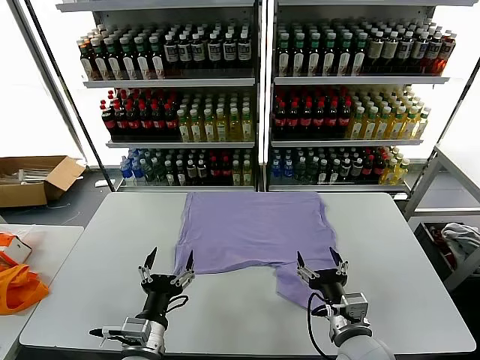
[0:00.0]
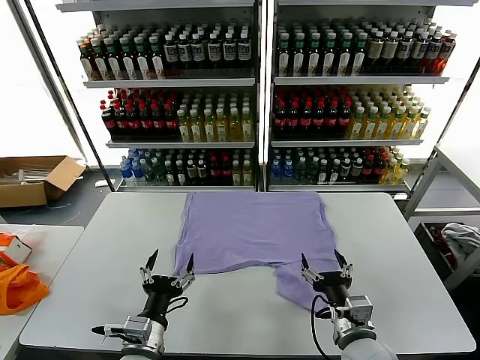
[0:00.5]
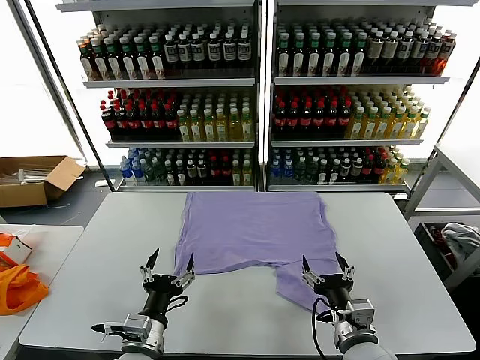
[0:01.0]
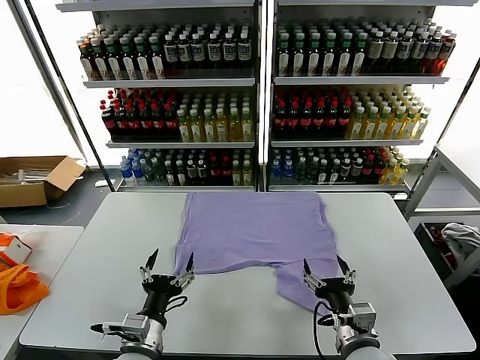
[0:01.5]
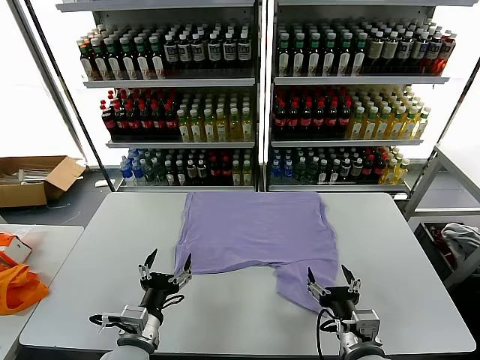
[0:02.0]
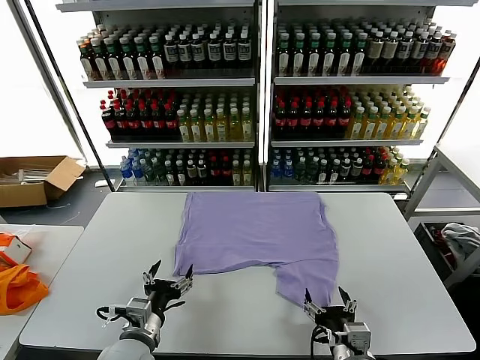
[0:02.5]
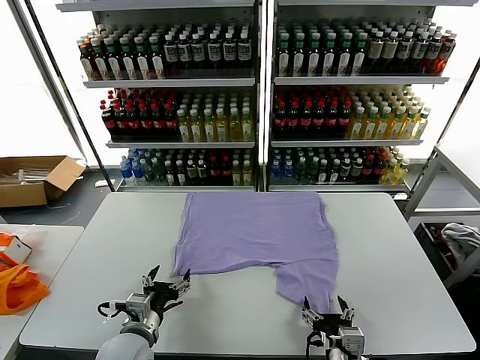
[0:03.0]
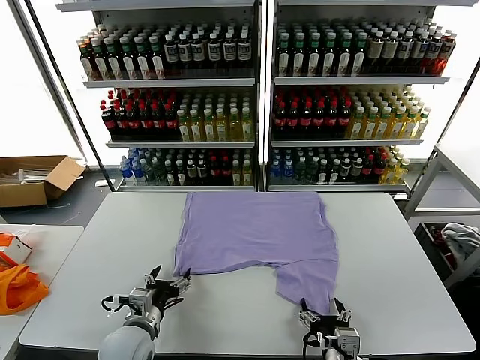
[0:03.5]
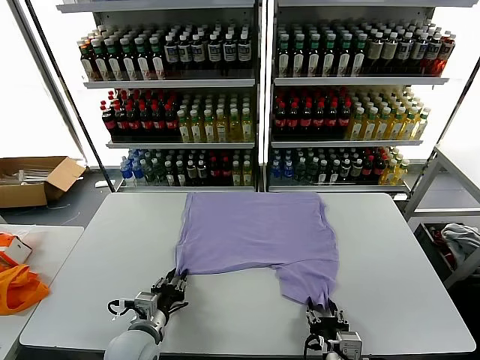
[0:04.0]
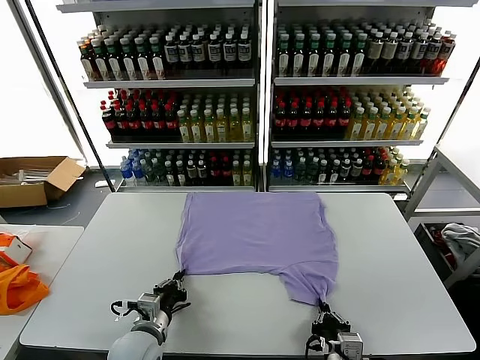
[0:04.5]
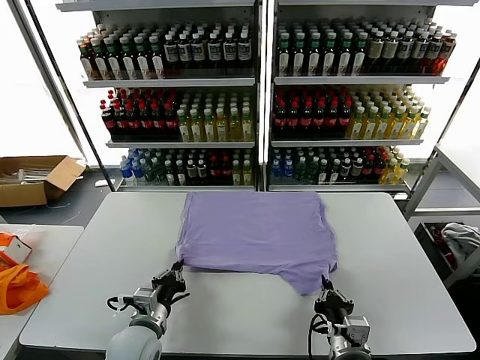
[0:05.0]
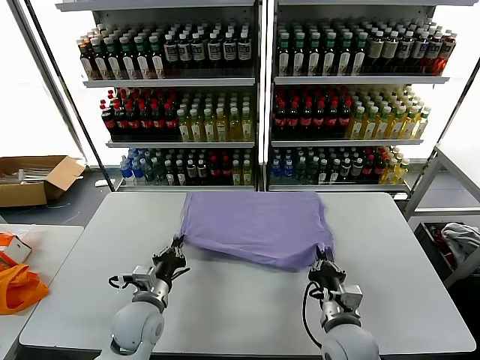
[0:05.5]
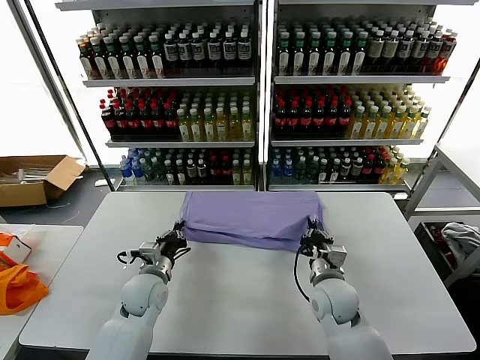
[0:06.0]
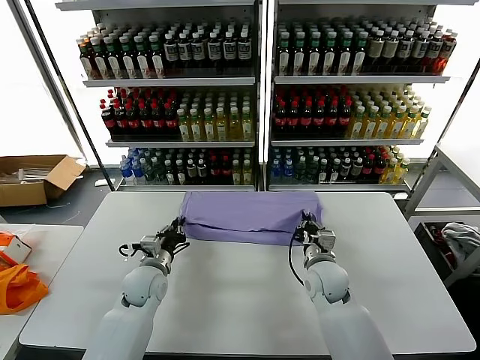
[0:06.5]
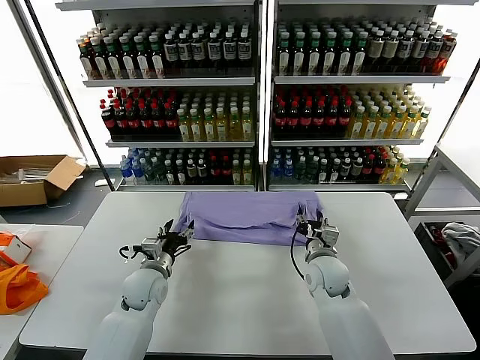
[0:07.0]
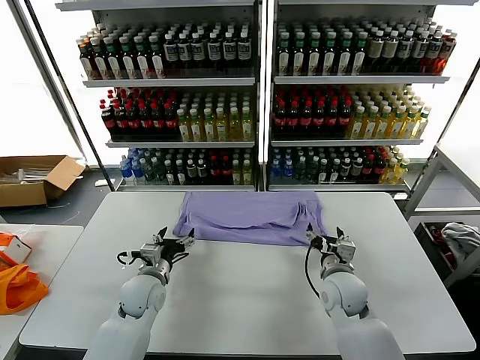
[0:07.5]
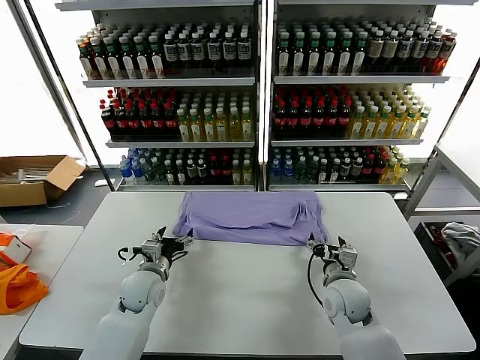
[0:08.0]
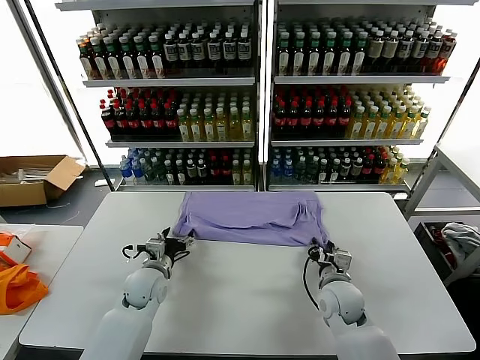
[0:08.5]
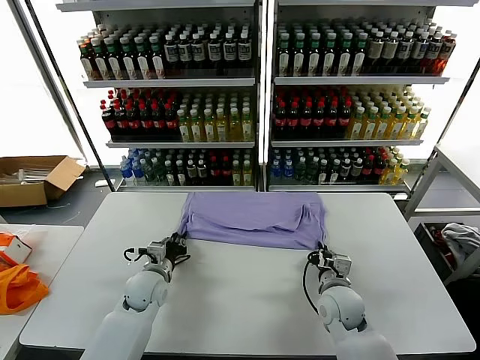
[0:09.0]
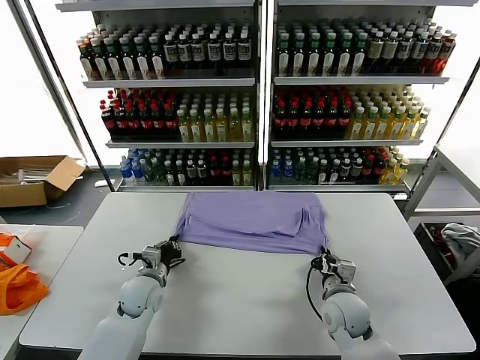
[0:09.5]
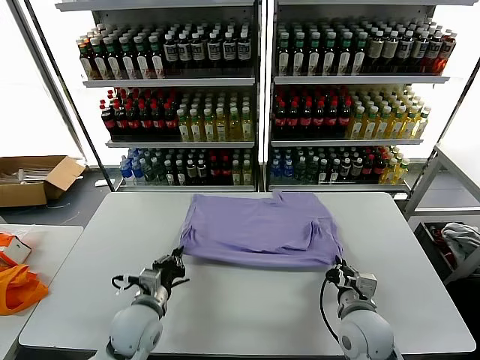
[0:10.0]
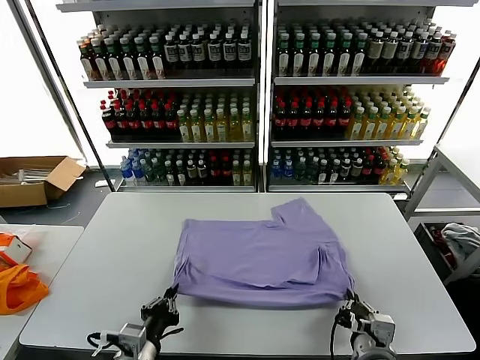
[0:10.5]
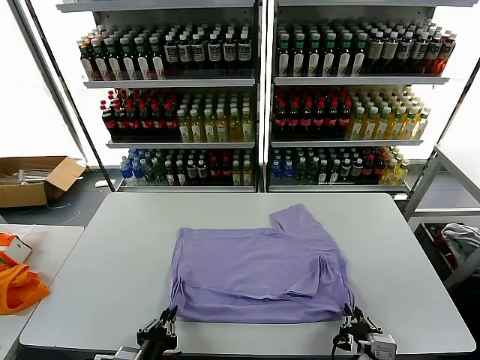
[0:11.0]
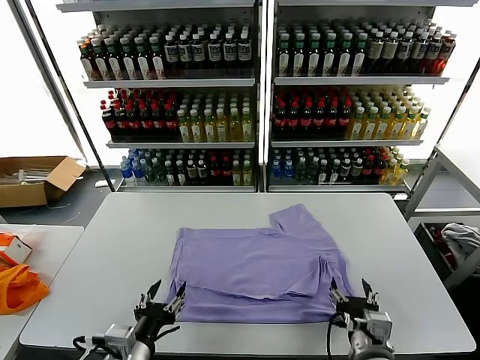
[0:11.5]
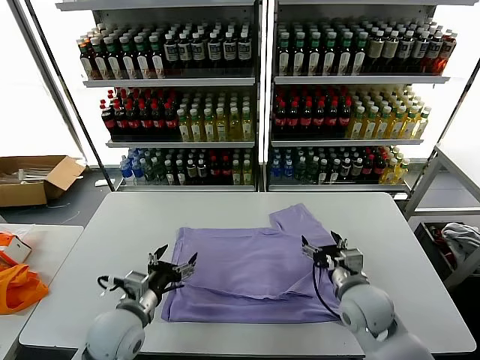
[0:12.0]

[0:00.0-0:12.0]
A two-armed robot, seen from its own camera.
Task of the whole recording: fold and organize the clothes.
Step, 0:00.0 to 0:04.5: use both grippers simultaneously to clamp the lower edge of the clothing fabric.
Step, 0:05.0 to 0:07.0: use both grippers to drag the lower edge of the fabric forward and fold it over the upper edge.
Step, 0:07.5 to 0:11.0: Drag the clothes downward with both gripper.
0:02.0 to 0:04.0: The left gripper moves roughly 5 cm, and closes; the right gripper shifts by approximately 5 cm, and closes.
0:04.0 to 0:06.0: The right gripper heads forward, covering about 20 cm, and closes up; the left gripper moves forward, some 15 cm.
0:06.0 to 0:08.0: The right gripper opens up; the left gripper opens its fingers.
0:08.0 to 0:10.0: The grippers both shift backward by approximately 10 cm. The left gripper closes; the right gripper closes its fingers.
0:10.0 to 0:12.0: The right gripper reaches roughly 10 cm backward, then returns, and opens up. The left gripper reaches some 15 cm backward, then returns, and opens up.

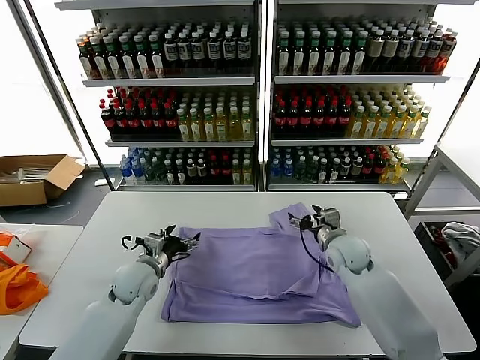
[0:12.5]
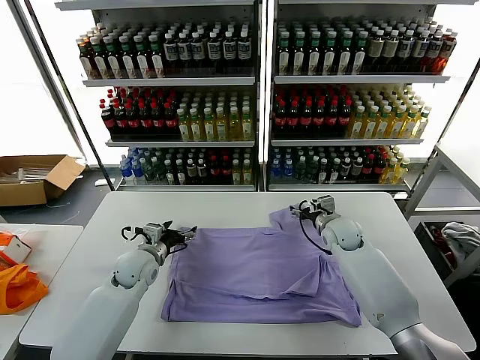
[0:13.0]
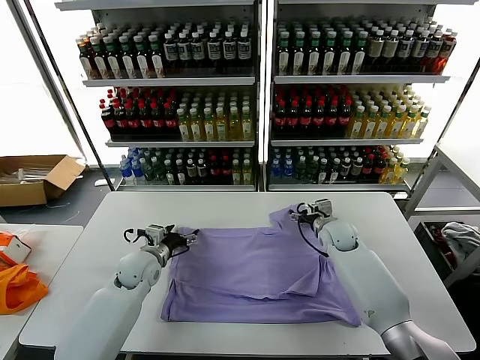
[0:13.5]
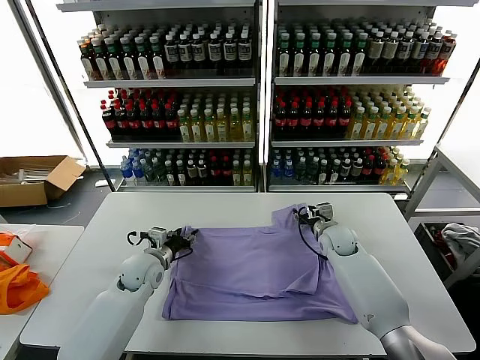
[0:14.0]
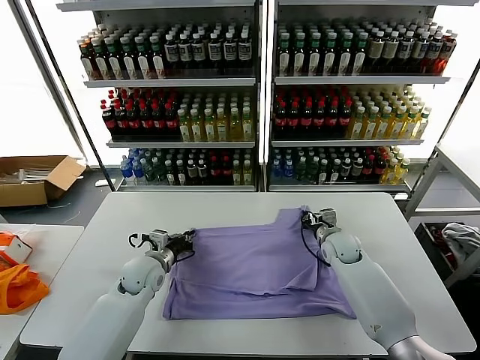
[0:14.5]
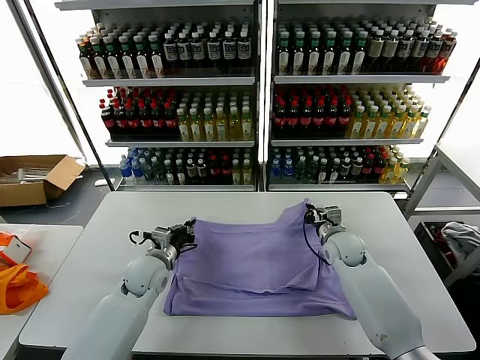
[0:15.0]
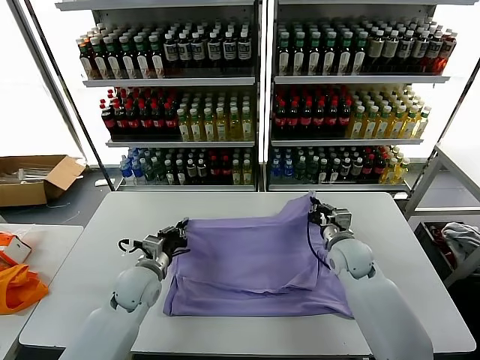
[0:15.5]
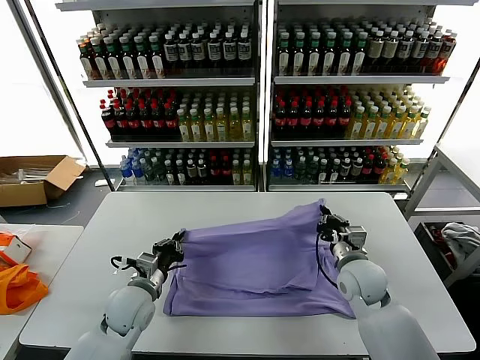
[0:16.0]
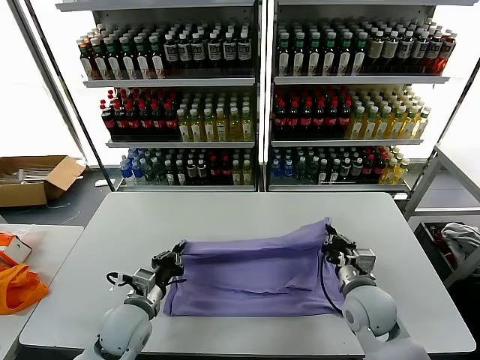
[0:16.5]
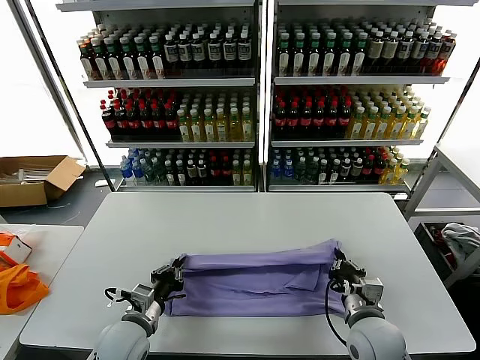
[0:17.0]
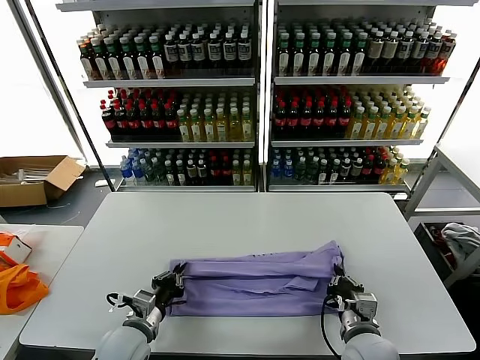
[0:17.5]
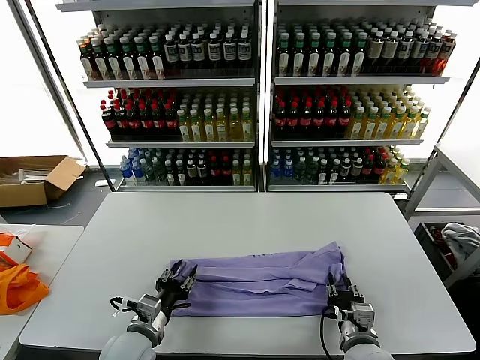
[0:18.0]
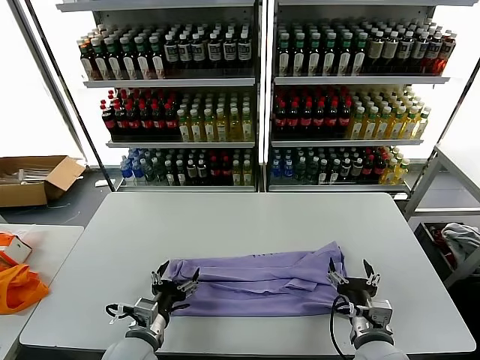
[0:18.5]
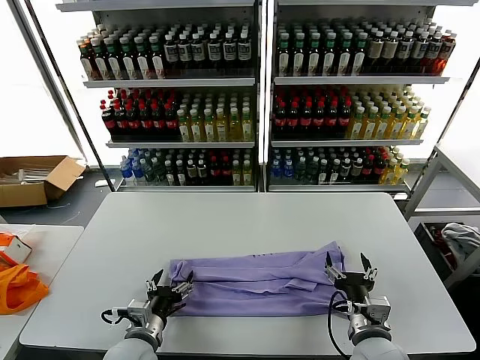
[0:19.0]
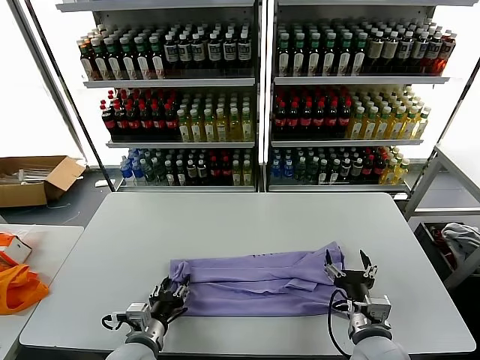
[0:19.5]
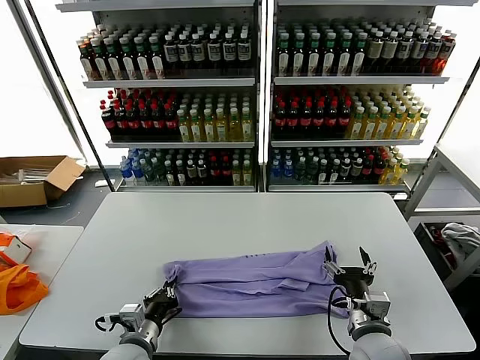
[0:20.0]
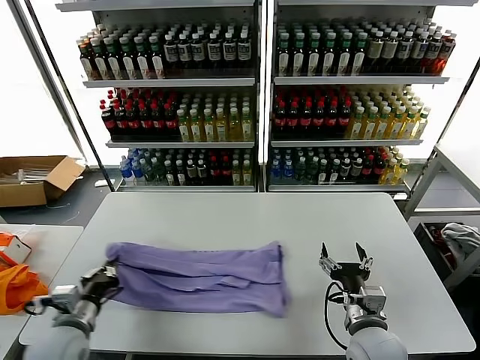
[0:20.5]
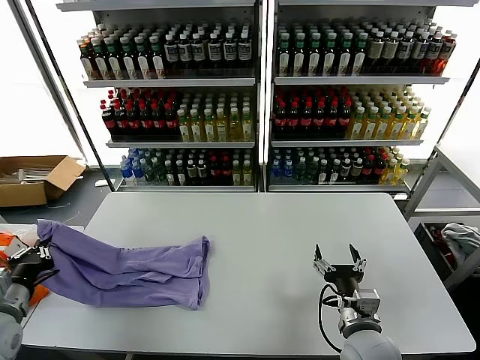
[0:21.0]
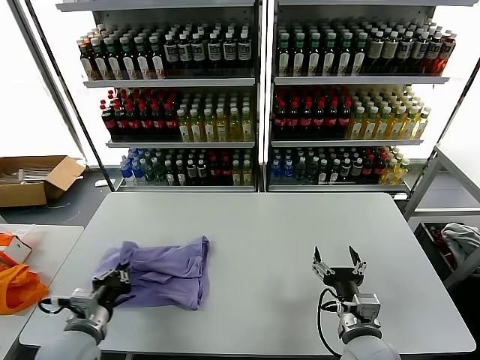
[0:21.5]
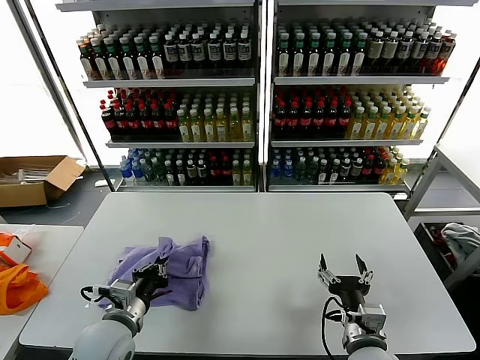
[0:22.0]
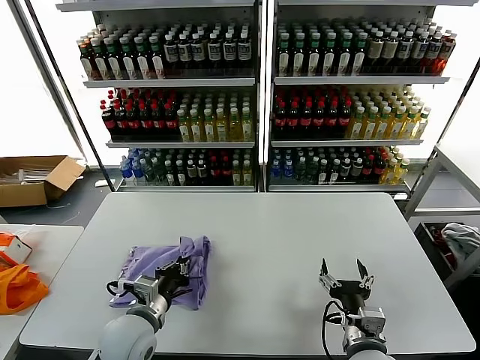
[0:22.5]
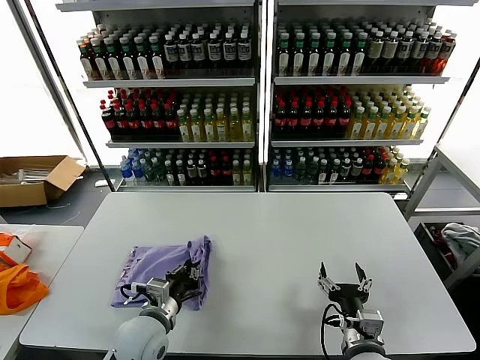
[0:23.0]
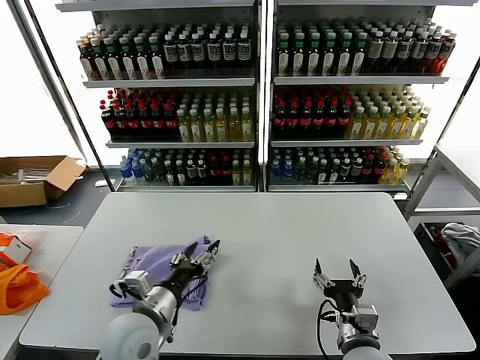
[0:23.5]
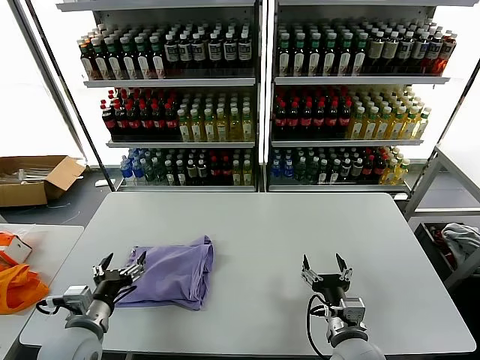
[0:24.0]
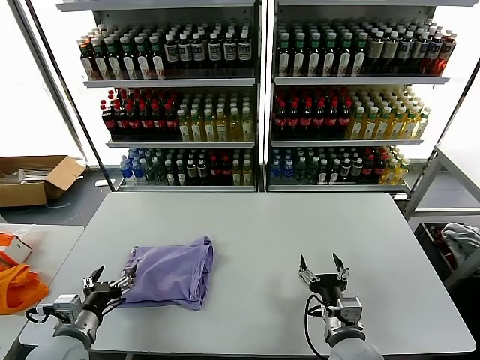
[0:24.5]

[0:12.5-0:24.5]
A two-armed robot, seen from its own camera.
Task of the whole recording: fold and organize the clothes.
Step, 0:12.5 to 0:14.5: use both grippers simultaneously to clamp the upper edge of the clothing fabric.
Step, 0:15.5 to 0:18.0: use both grippers to drag the upper edge of the fabric backward and fold it over the lower edge.
Step, 0:18.5 to 0:19.5: use the left gripper to clamp the left edge of the fabric.
Step, 0:20.0 to 0:23.0: use the left gripper to drag the left edge of the fabric to the left and folds it over the right edge.
0:12.5 to 0:14.5: The right gripper heads downward, covering some 5 cm, and closes. Meanwhile the left gripper closes its fingers.
0:14.5 to 0:16.5: The grippers both shift backward by roughly 15 cm.
0:16.5 to 0:18.5: The right gripper is displaced backward by roughly 10 cm, and opens up, while the left gripper is displaced backward by about 5 cm, and opens its fingers.
0:18.5 to 0:20.5: The left gripper goes some 15 cm to the left, and closes its fingers.
0:20.5 to 0:22.5: The left gripper goes roughly 15 cm to the right.
0:22.5 to 0:24.5: The left gripper goes roughly 15 cm to the left, and opens its fingers.

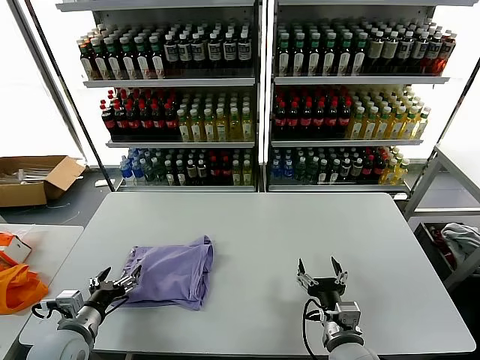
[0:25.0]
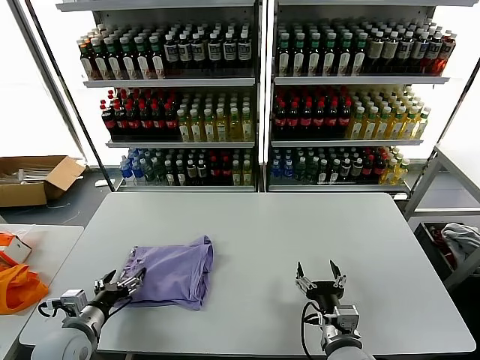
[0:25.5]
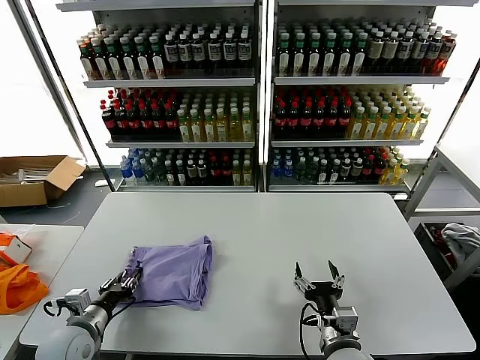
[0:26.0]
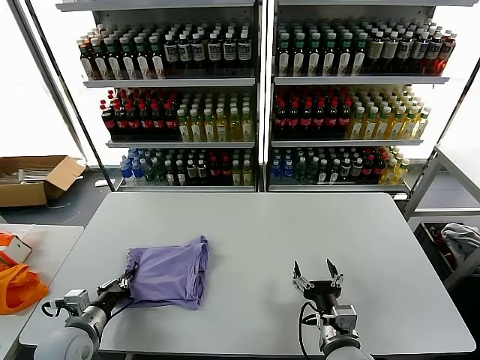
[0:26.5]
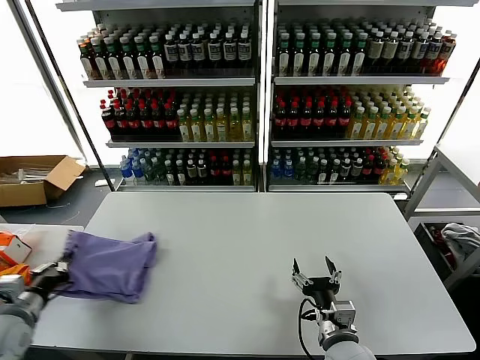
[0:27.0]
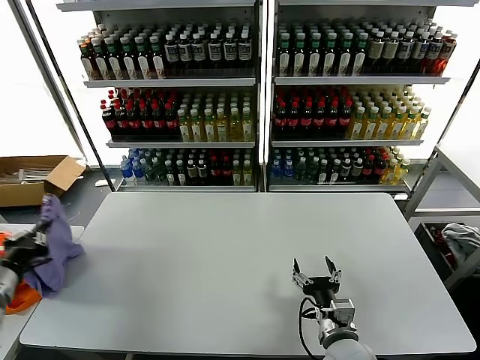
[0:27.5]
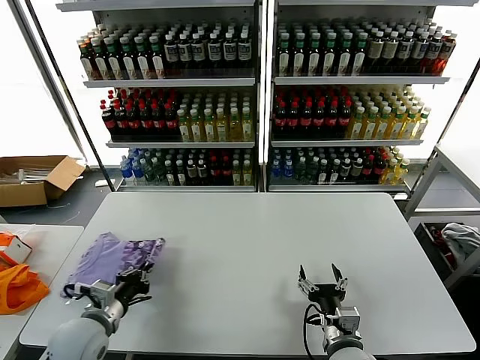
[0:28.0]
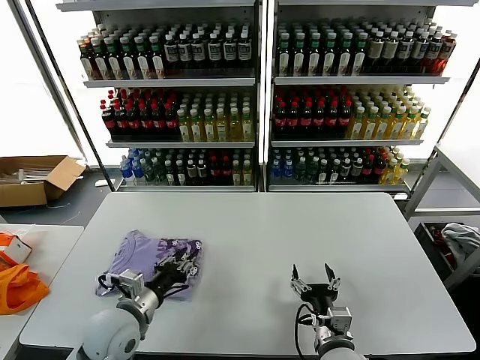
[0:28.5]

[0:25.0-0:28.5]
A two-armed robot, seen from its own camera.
Task of the whole recording: fold and organize the clothes.
Step, 0:25.0 to 0:28.5: Flip the folded clothes over with left gripper.
0:25.0 to 0:27.0: The left gripper shifts approximately 10 cm to the left, and closes its fingers.
0:27.0 to 0:28.5: The left gripper heads to the right, covering roughly 20 cm.
